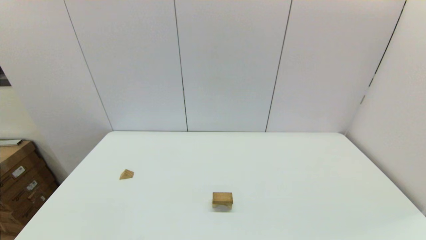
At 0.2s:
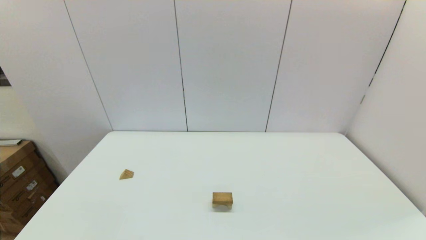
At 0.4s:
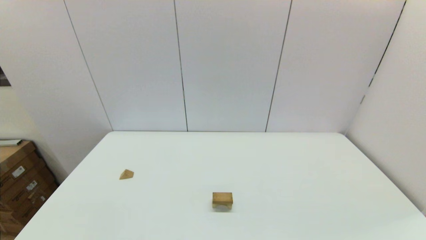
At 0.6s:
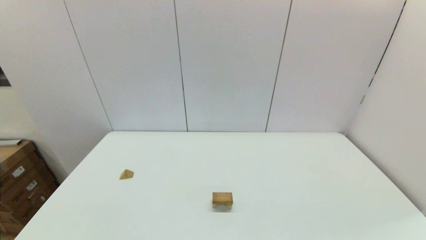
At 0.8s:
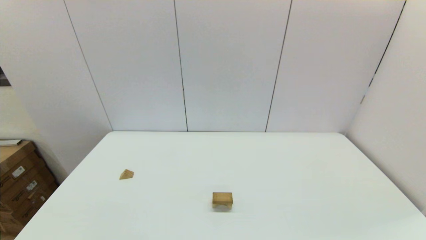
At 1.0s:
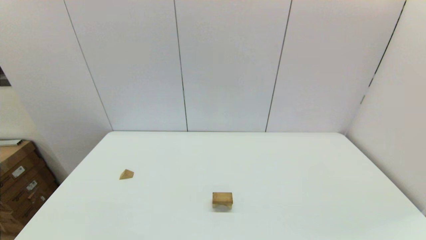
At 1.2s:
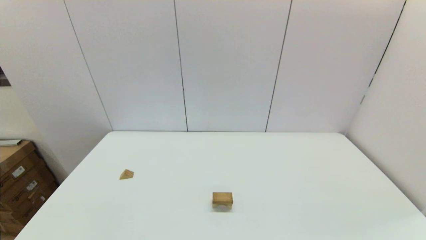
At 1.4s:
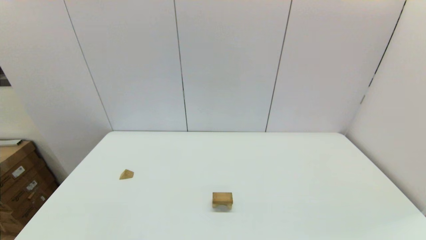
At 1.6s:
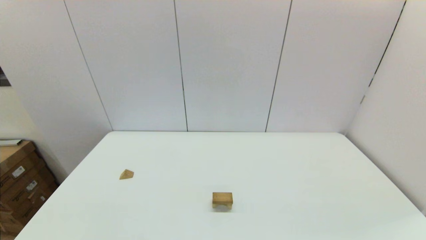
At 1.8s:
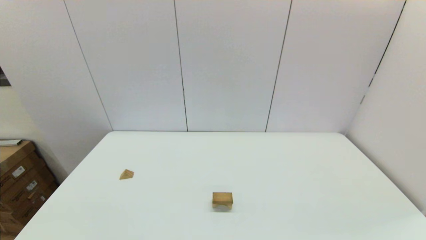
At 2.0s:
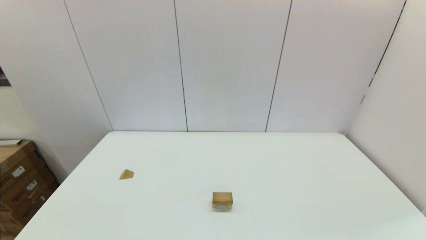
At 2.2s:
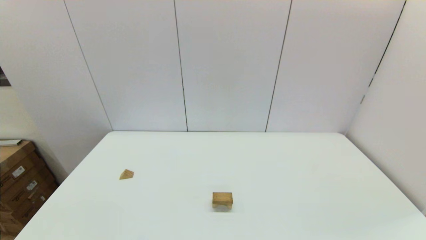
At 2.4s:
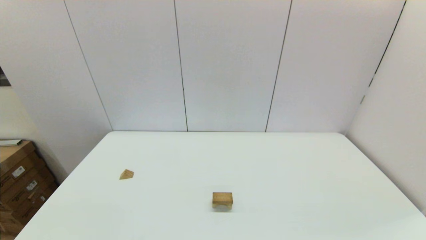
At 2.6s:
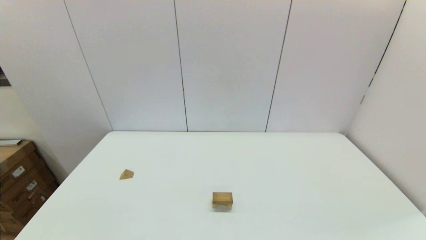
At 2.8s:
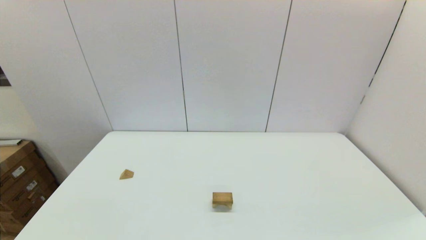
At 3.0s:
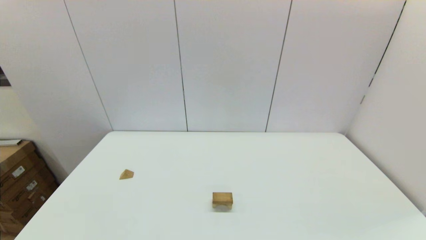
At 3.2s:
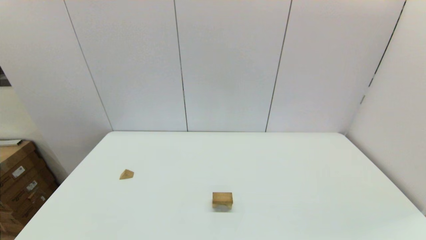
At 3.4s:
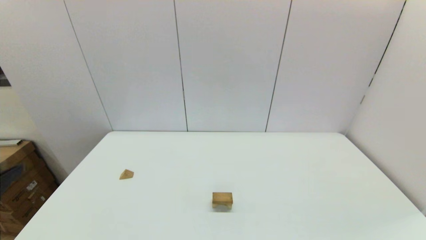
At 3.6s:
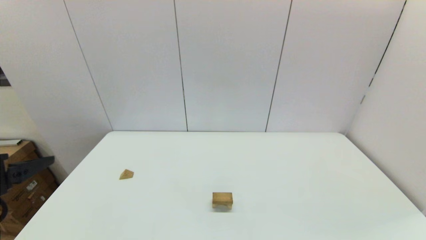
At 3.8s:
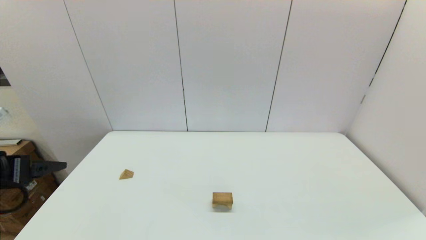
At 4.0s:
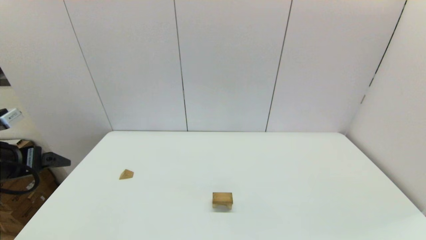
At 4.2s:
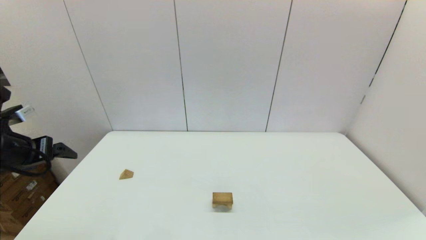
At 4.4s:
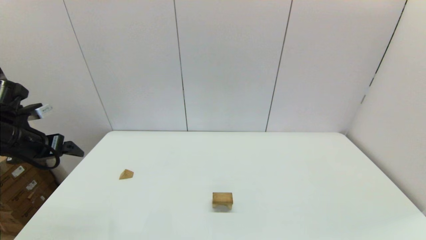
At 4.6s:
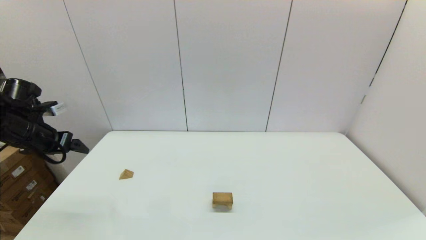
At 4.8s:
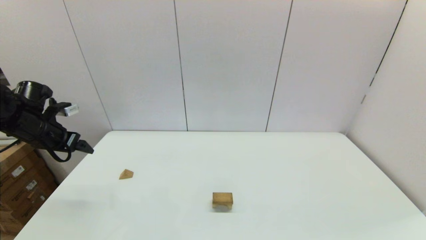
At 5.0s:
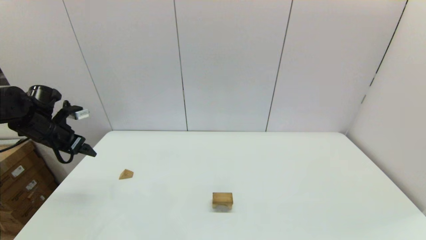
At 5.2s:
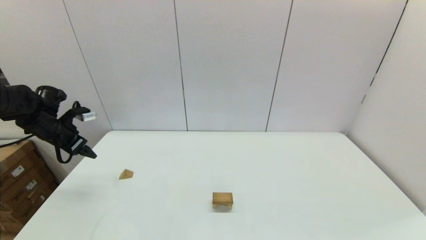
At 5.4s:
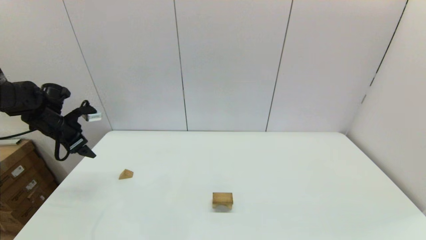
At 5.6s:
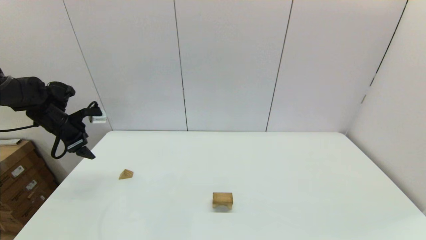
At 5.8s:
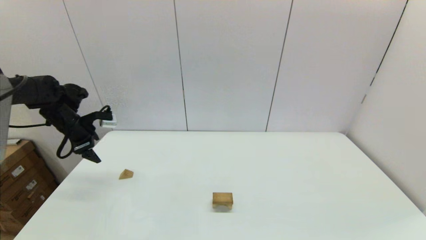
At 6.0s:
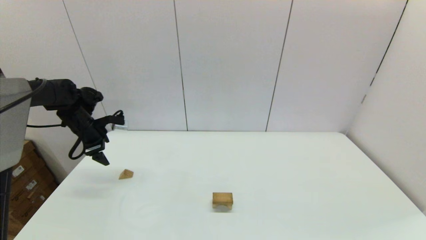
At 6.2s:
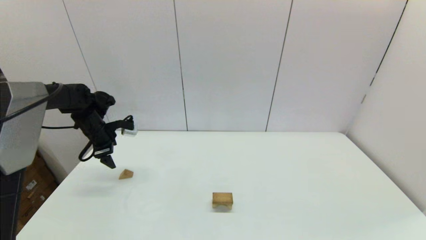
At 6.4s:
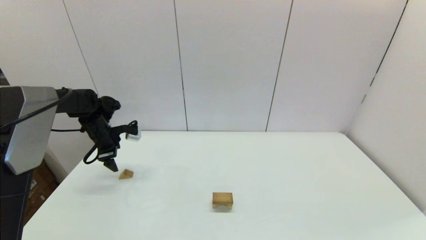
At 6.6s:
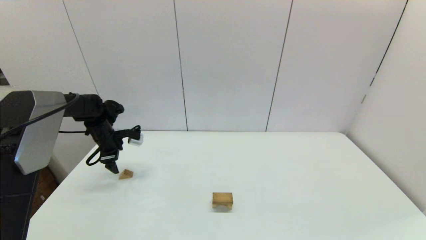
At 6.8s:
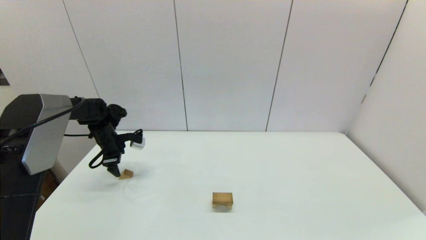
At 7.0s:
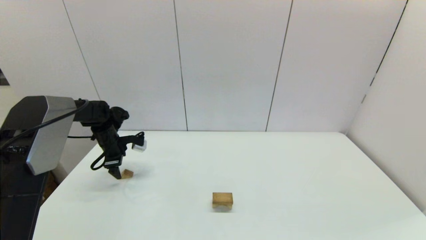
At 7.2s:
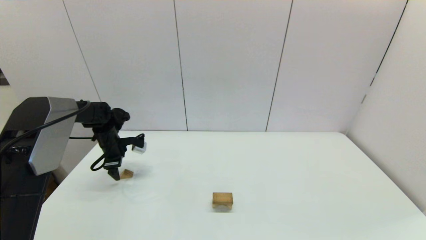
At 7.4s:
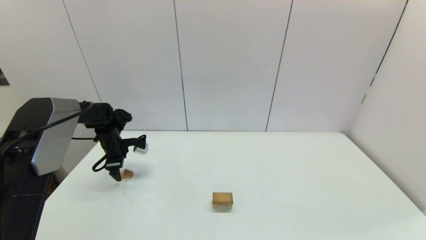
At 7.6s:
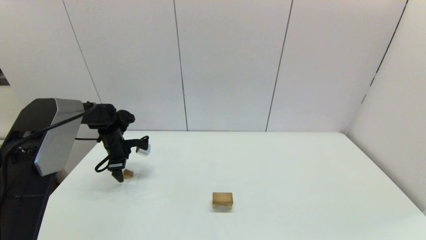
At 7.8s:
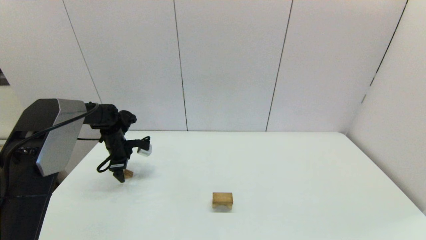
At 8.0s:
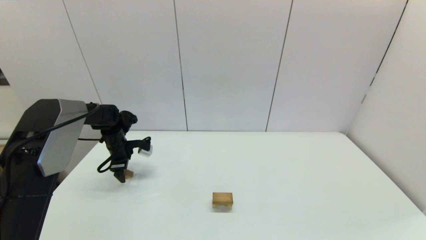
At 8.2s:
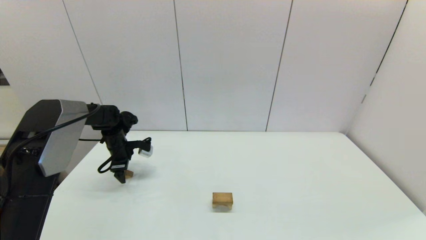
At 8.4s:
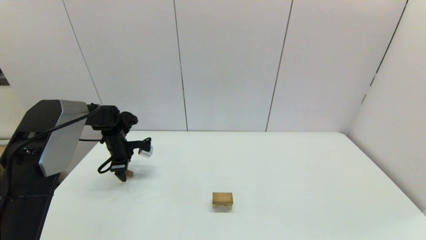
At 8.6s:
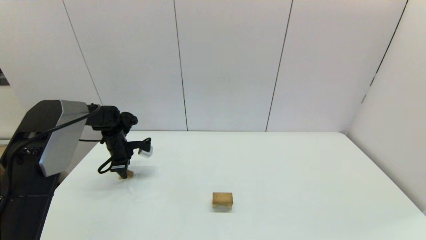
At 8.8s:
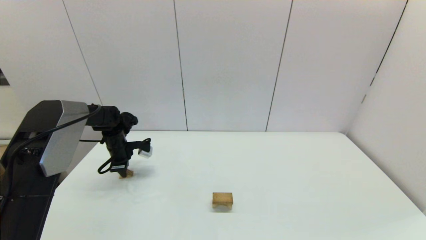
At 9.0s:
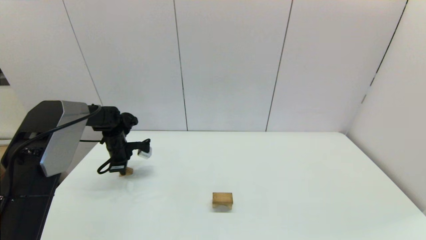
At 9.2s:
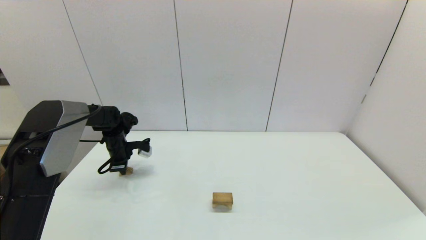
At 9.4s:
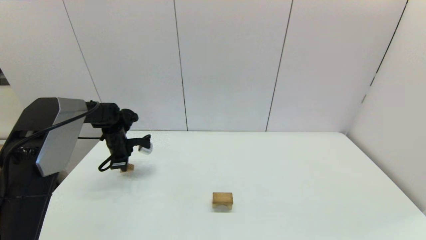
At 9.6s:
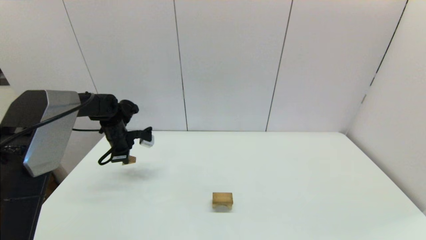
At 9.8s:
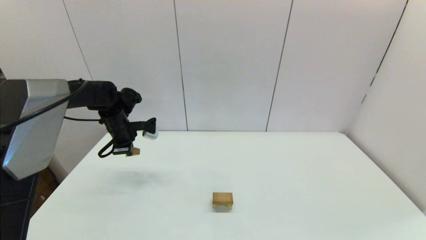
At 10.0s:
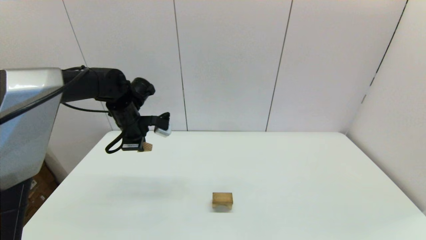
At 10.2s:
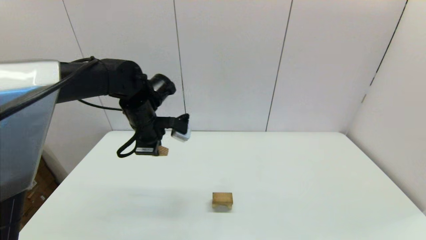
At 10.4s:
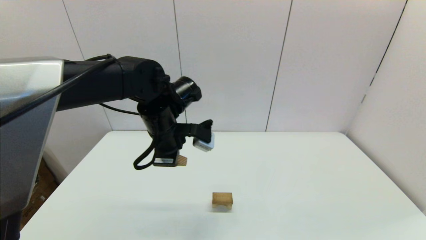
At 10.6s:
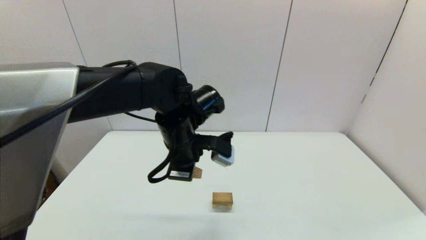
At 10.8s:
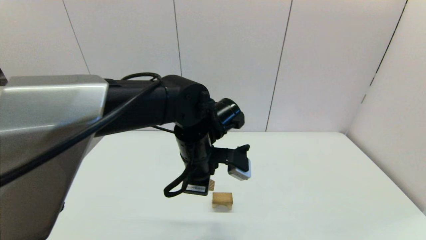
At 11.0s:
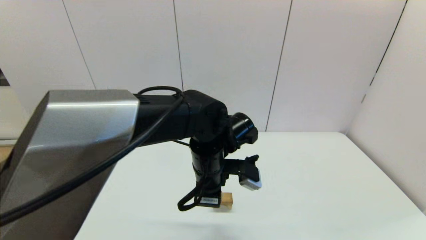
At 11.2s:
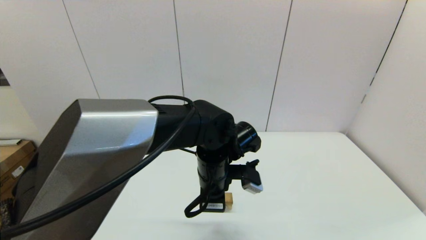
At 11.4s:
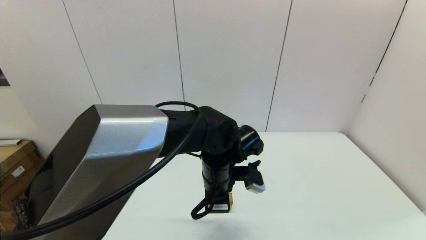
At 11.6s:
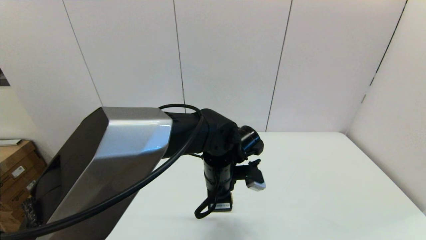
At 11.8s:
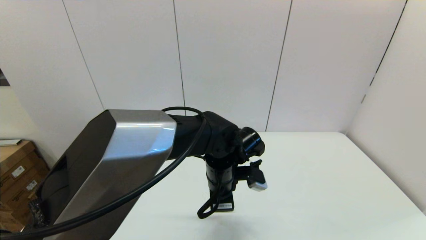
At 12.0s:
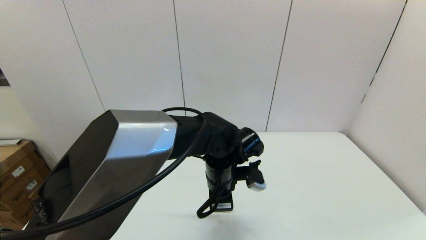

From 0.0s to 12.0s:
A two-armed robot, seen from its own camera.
Task of the whole recording: place the arched building blocks in the center of the table, set up the rectangular building blocks, and then set up the triangular building blocks.
Step, from 0.0s to 8.8s: Grasp the triangle-shaped block with the left gripper.
From 0.0s to 1.6s: Both grippers stay about where they are.
From 3.0s to 4.4s: The left gripper shifts approximately 30 cm forward.
From 4.4s to 6.0s: The left gripper moves forward and downward, roughly 15 cm.
From 6.0s to 7.6s: The left gripper goes approximately 10 cm downward and to the right.
From 7.6s to 9.0s: The left gripper closes.
From 9.0s to 10.4s: The left gripper goes about 30 cm to the right, upward and backward.
From 10.4s to 12.0s: The left gripper moves to the right and downward, approximately 15 cm.

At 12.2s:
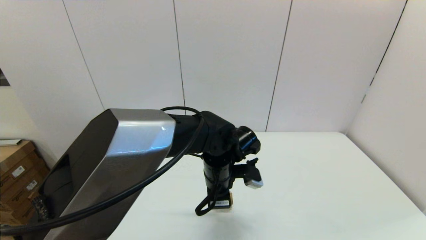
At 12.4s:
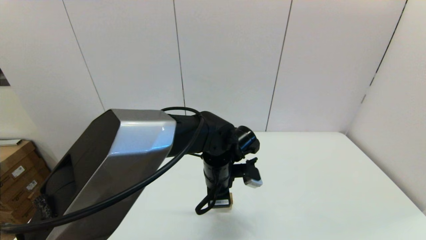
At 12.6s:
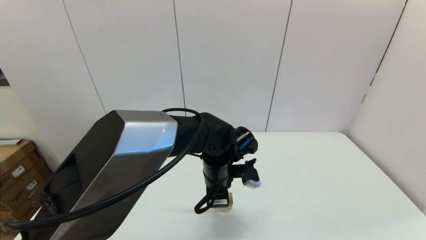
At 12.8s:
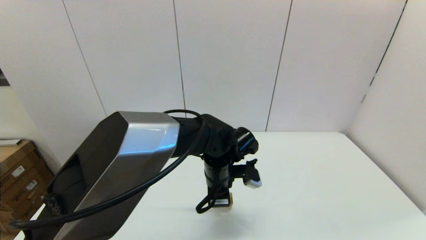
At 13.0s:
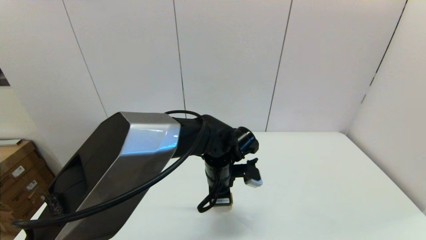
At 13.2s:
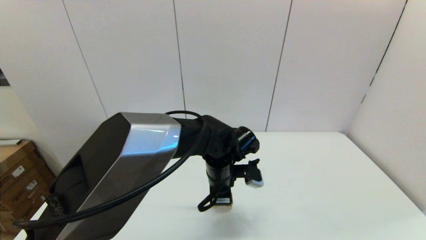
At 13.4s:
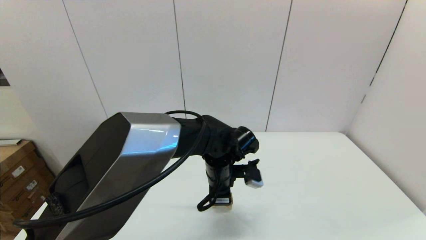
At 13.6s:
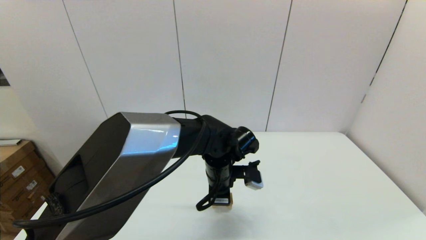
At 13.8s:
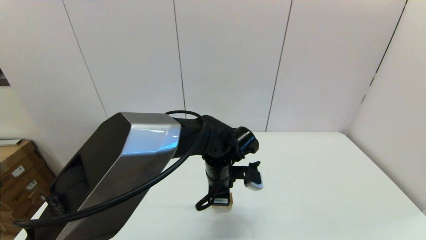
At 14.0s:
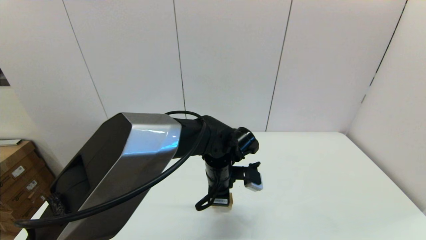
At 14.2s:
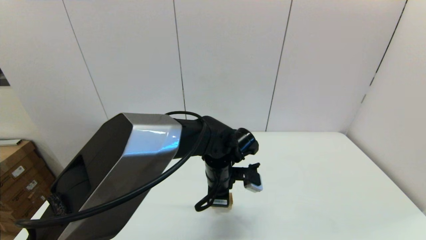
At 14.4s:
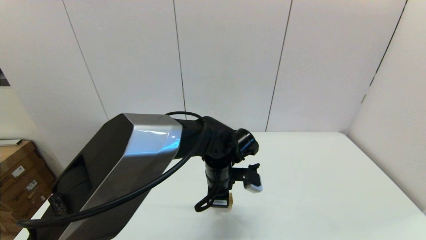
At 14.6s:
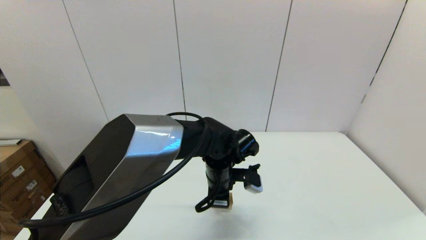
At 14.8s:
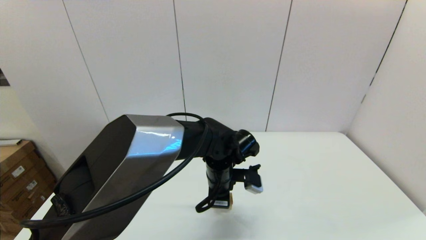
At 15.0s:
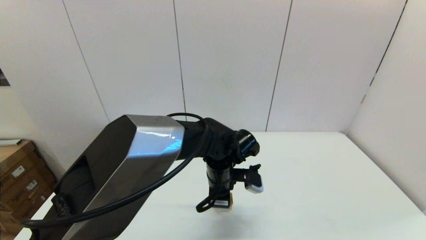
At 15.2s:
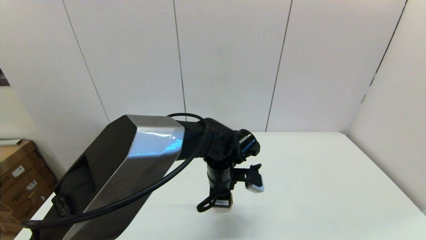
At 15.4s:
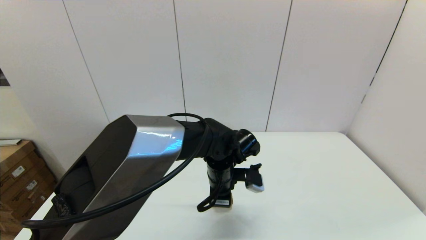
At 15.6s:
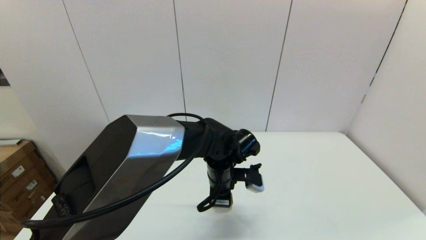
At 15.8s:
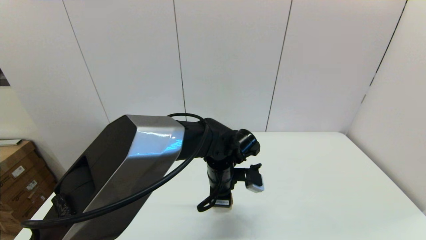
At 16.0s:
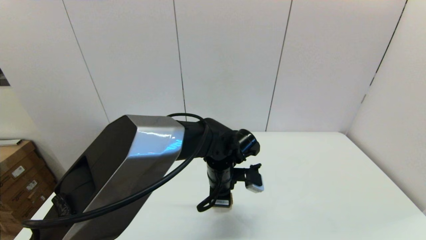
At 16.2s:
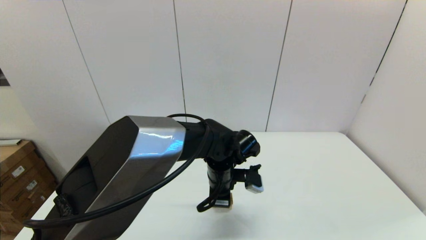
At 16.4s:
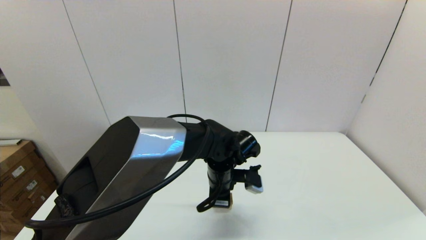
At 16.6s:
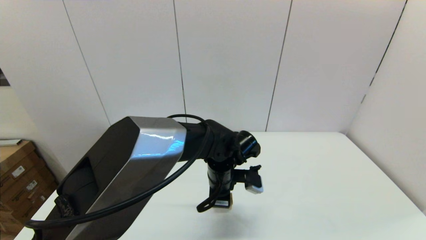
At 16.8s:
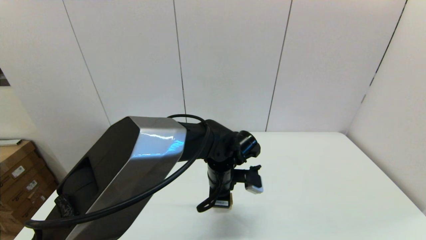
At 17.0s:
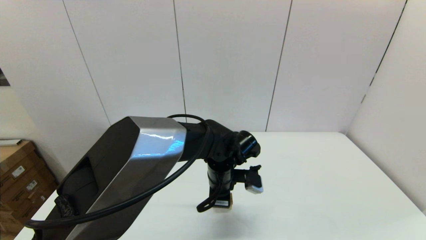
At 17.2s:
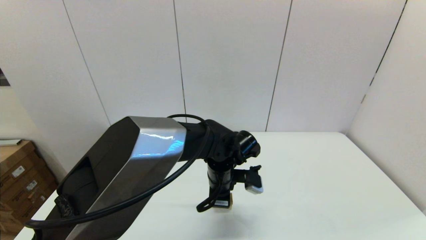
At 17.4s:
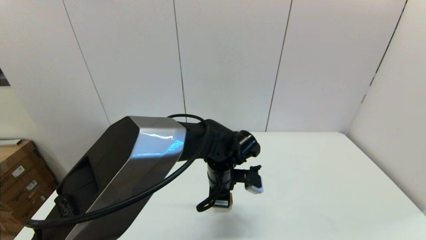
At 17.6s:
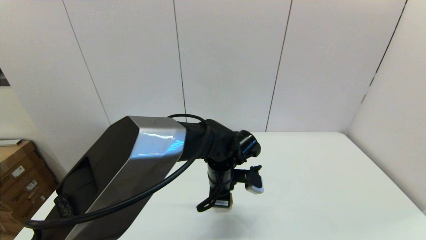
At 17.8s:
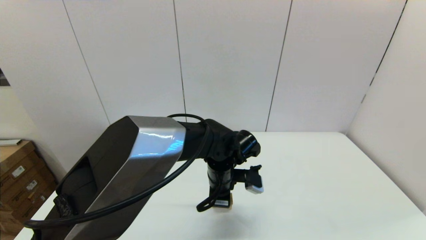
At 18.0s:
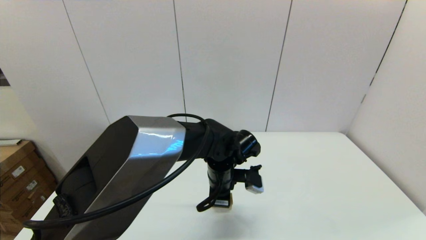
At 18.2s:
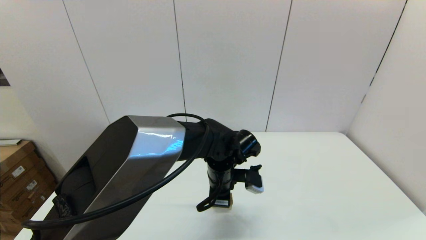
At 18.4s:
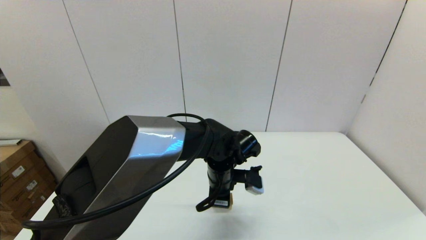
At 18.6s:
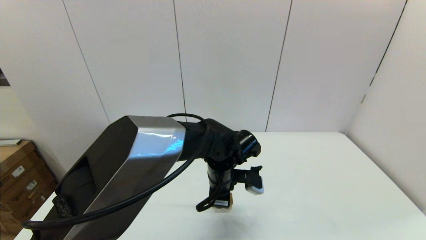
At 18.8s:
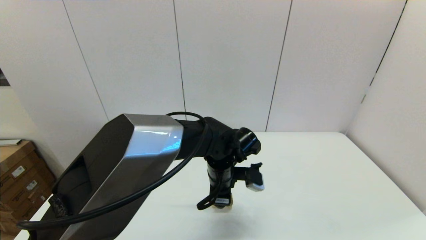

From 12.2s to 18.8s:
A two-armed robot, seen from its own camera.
Task of the whole recording: place the arched building blocks in the center of the table, set up the rectangular building blocks, and then set up the triangular building blocks.
From 12.2s to 13.8s: The grippers move only a little.
From 13.8s to 17.2s: The two grippers keep their place.
From 17.2s to 18.8s: The left gripper opens its fingers.
